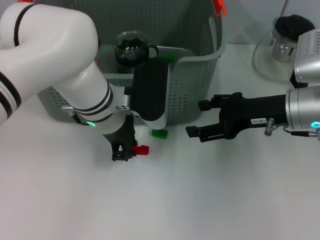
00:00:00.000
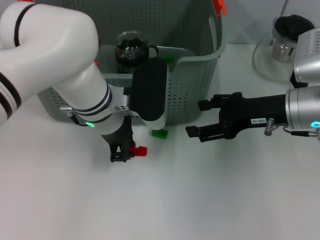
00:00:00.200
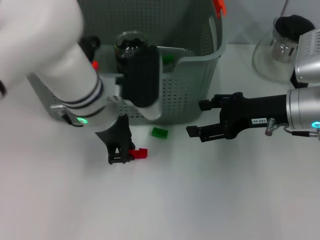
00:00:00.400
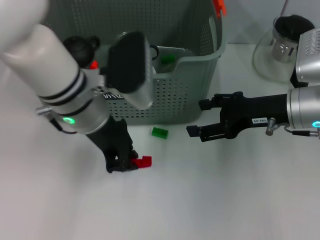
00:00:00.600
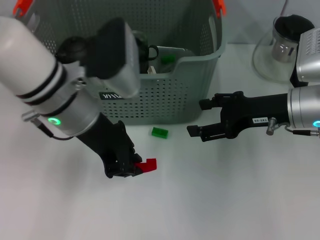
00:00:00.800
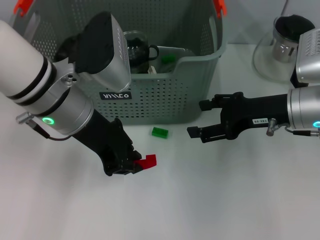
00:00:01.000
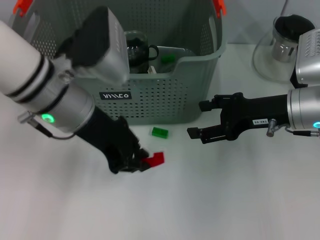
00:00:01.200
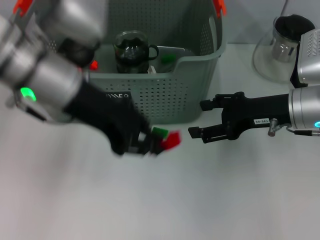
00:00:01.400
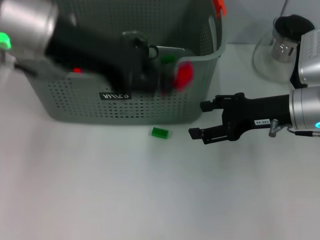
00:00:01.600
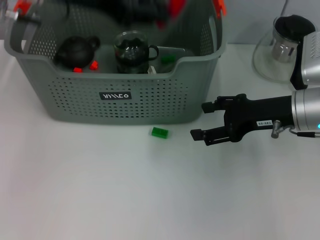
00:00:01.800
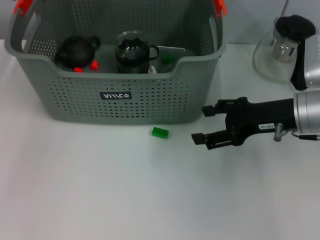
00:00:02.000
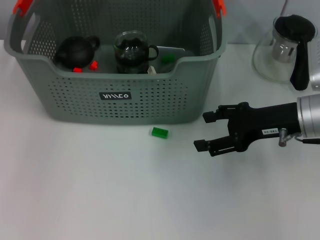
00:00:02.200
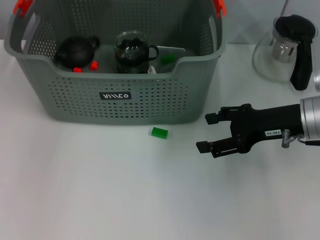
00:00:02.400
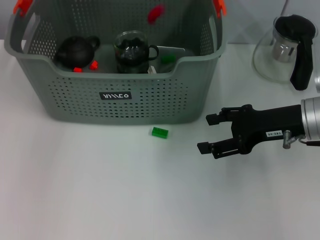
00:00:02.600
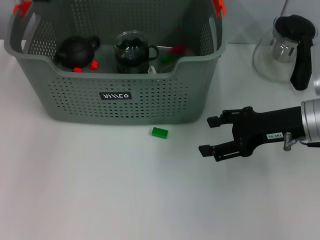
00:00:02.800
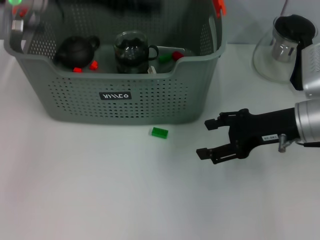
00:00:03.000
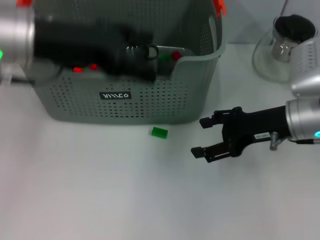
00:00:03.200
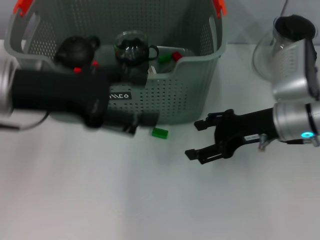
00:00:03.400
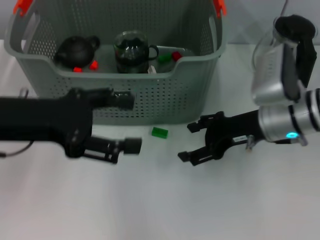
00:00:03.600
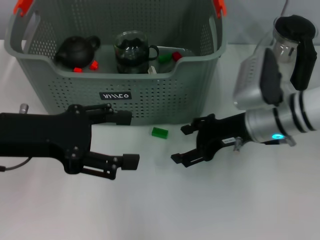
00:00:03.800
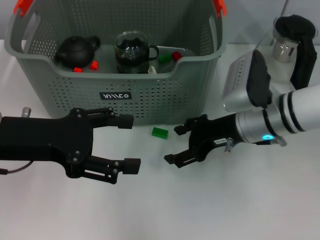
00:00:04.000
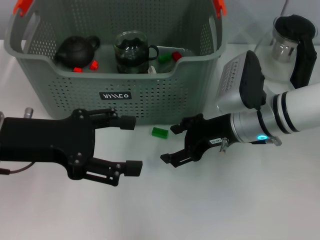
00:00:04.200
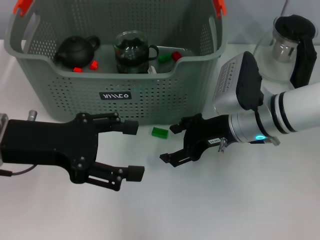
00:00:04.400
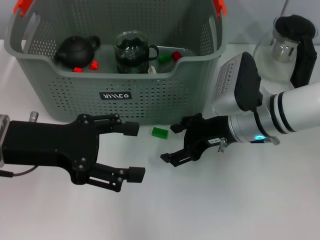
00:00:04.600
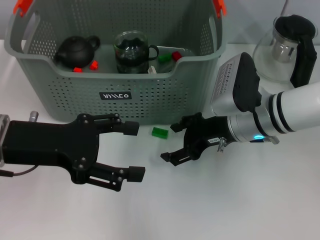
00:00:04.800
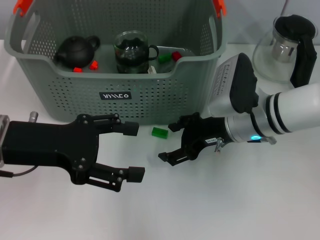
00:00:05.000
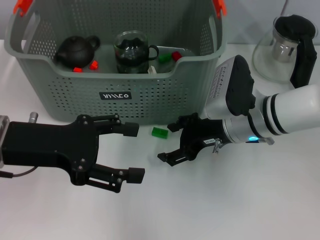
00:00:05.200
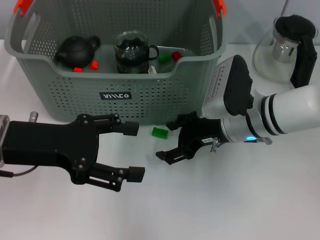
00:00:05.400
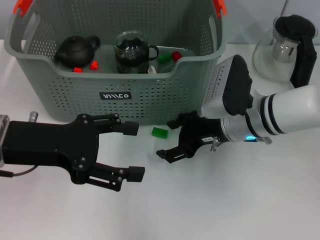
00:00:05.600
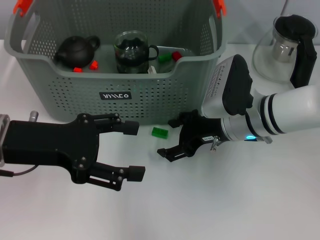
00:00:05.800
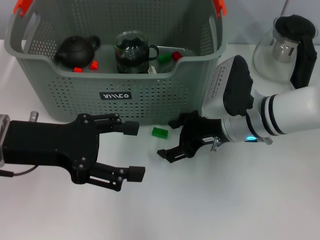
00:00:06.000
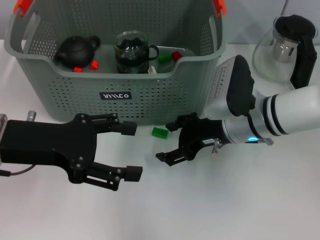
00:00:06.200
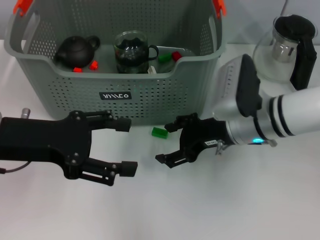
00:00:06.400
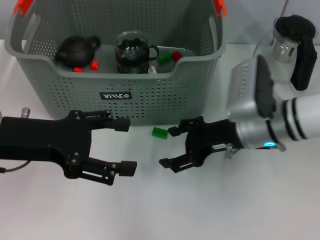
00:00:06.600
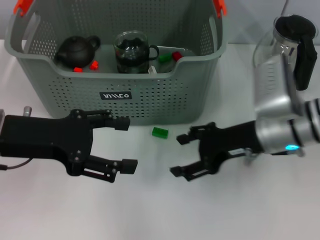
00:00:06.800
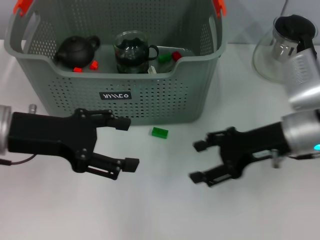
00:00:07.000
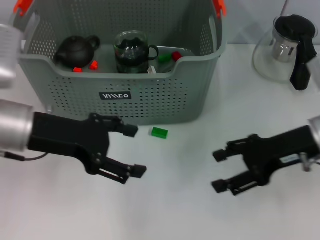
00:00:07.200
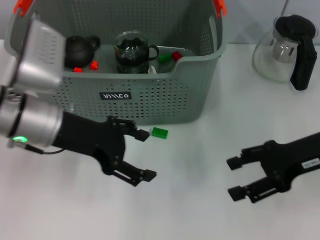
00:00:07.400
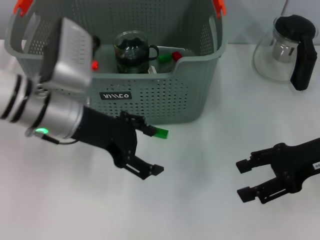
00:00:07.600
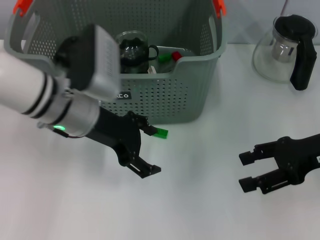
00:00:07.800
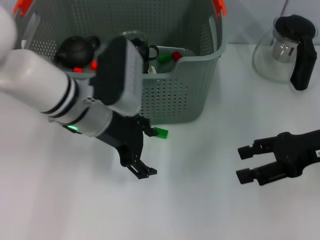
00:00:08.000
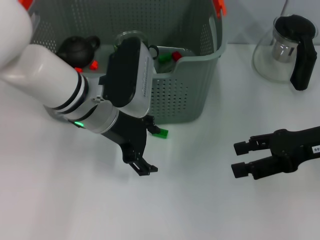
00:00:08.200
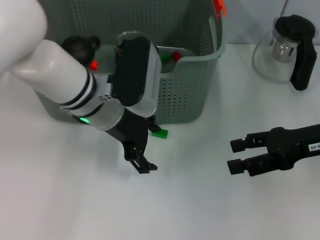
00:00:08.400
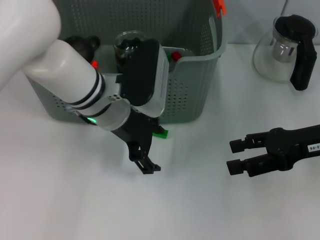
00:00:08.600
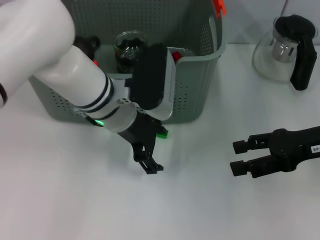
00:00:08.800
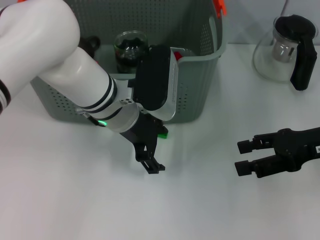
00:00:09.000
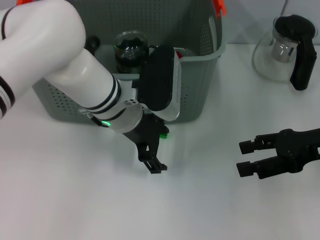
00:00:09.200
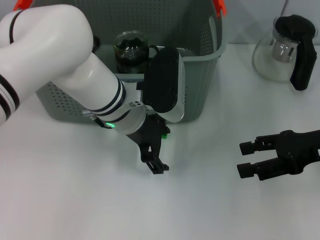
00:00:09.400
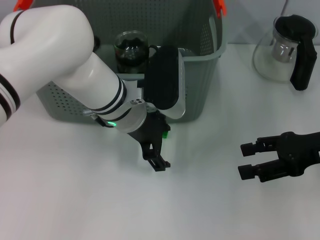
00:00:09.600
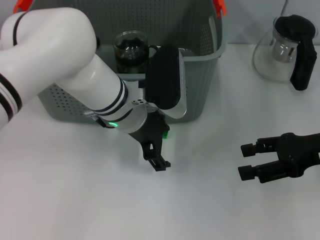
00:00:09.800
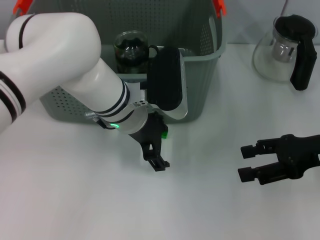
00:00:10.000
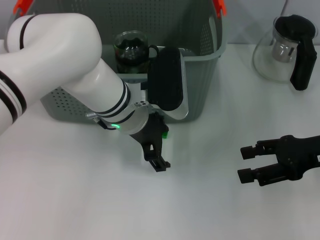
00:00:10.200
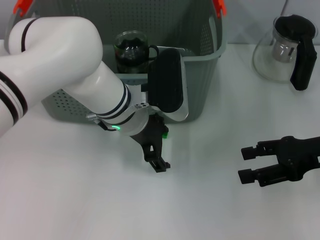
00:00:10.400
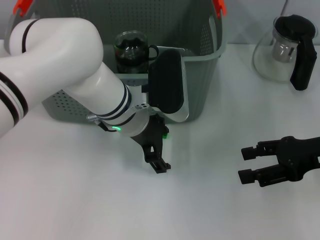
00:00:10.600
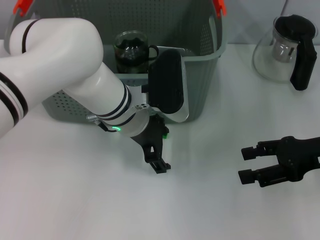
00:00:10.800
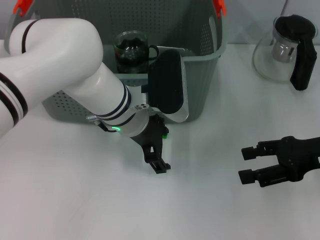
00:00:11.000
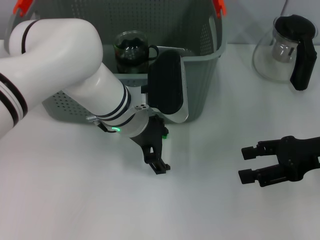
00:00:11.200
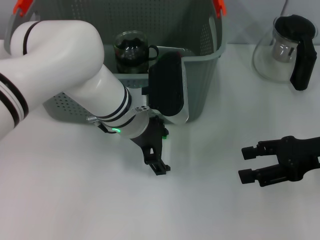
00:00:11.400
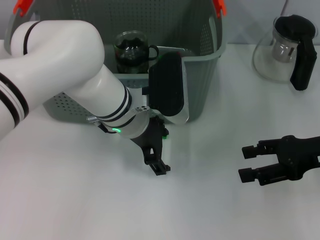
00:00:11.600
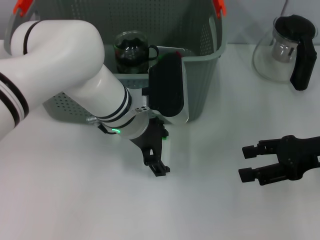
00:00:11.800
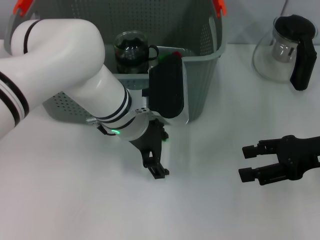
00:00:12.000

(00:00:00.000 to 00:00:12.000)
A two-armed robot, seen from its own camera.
Task of the whole recording: pick up the teacup on the table and place it into the storage bin, pick up the block on the table and place it into the storage bin.
Step, 00:00:00.200 - 00:00:02.600: Place the red block in the storage box with left gripper.
00:00:00.000 - 00:00:01.600: The left gripper shifts roughly 20 cm upward and to the left.
00:00:01.600 - 00:00:03.000: The left gripper goes forward and returns, approximately 10 cm each way, and opens.
00:00:03.000 - 00:00:04.400: The left gripper heads backward and downward, covering about 15 cm, and opens. The right gripper is displaced to the left by approximately 10 cm.
00:00:04.400 - 00:00:06.000: The grippers make only small movements.
00:00:06.000 - 00:00:07.600: The right gripper travels to the right by some 15 cm. The left gripper goes some 10 cm forward and to the right.
00:00:07.600 - 00:00:09.000: The left gripper goes approximately 10 cm to the right.
00:00:09.000 - 00:00:10.400: The grippers make only small movements.
00:00:10.400 - 00:00:12.000: Both grippers stay put.

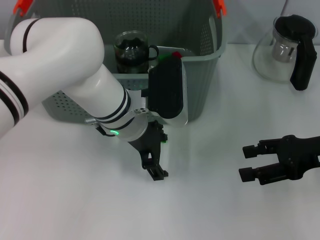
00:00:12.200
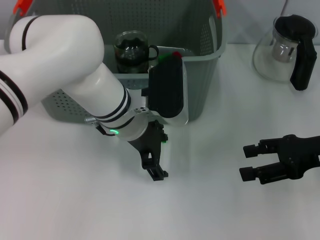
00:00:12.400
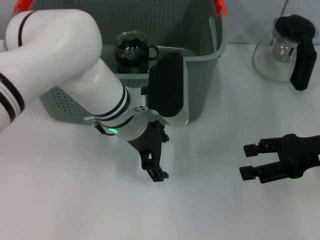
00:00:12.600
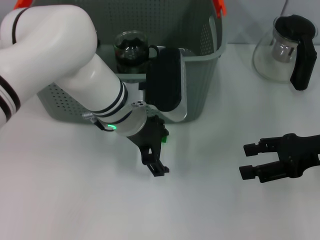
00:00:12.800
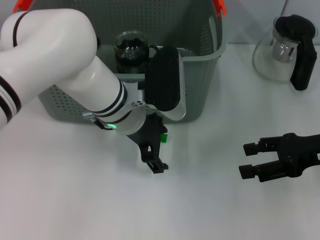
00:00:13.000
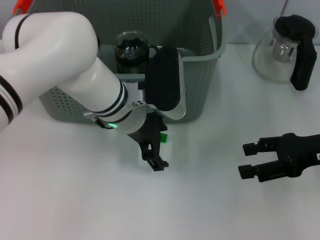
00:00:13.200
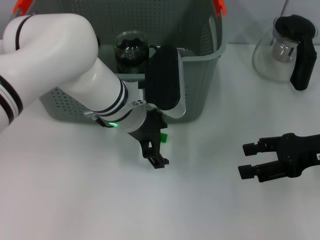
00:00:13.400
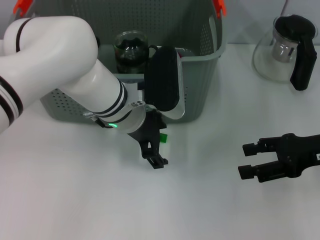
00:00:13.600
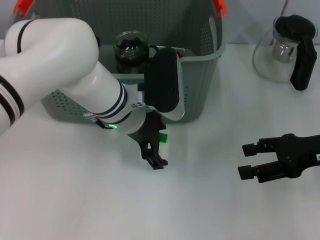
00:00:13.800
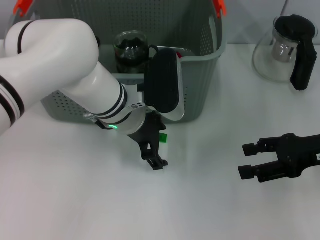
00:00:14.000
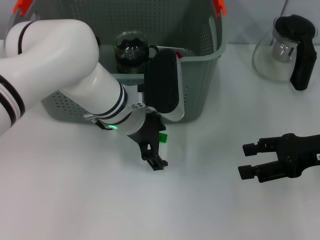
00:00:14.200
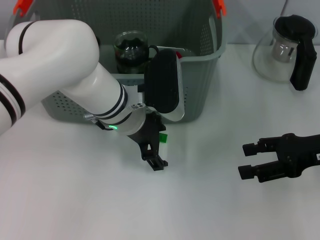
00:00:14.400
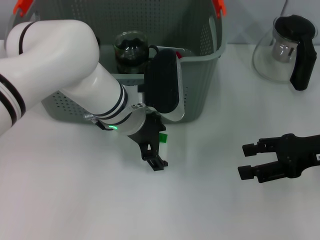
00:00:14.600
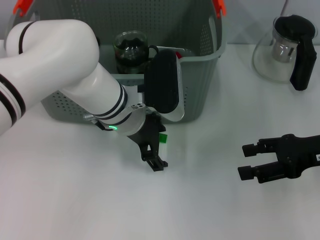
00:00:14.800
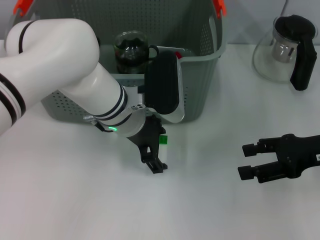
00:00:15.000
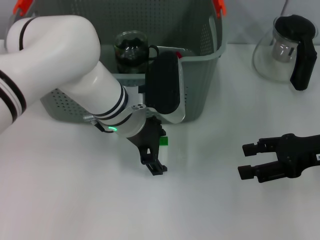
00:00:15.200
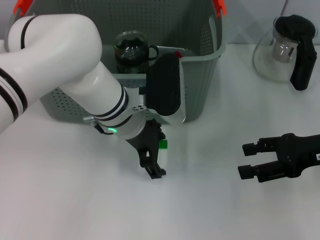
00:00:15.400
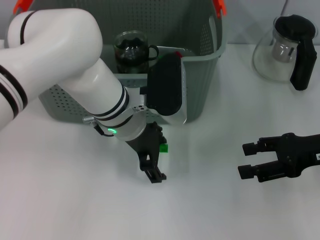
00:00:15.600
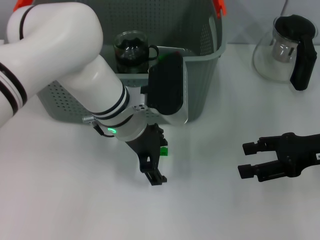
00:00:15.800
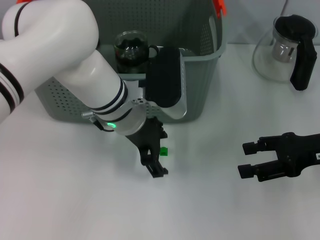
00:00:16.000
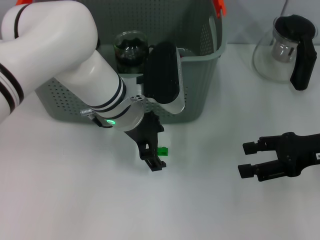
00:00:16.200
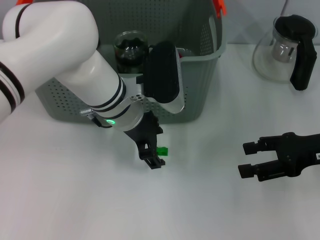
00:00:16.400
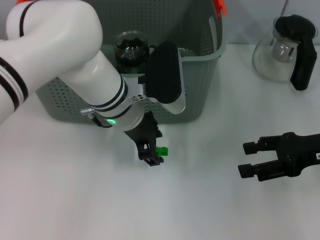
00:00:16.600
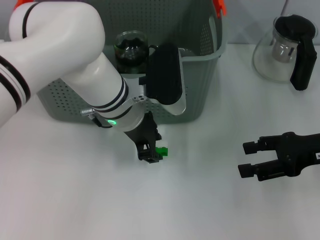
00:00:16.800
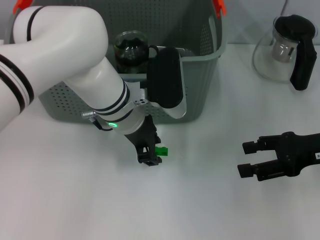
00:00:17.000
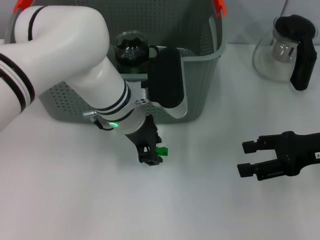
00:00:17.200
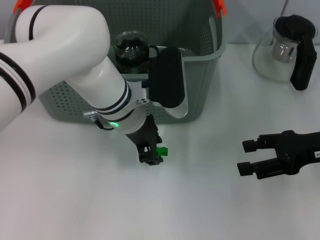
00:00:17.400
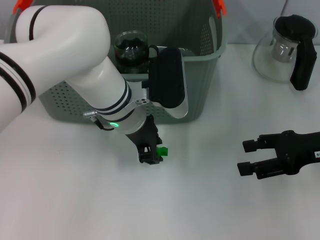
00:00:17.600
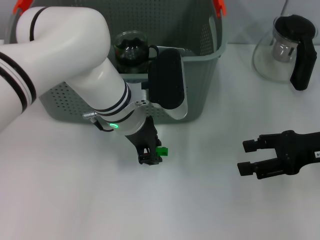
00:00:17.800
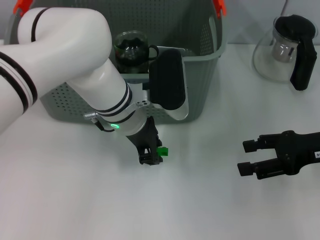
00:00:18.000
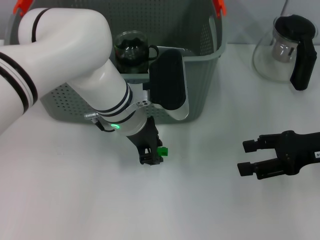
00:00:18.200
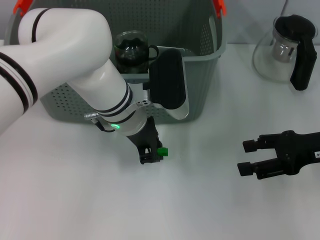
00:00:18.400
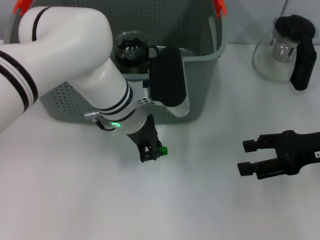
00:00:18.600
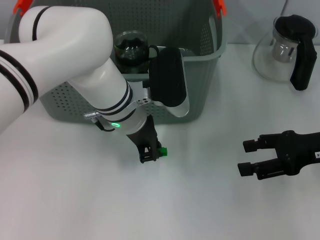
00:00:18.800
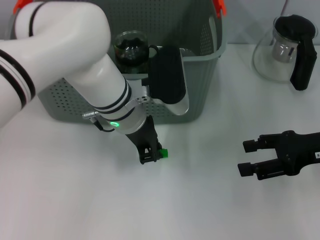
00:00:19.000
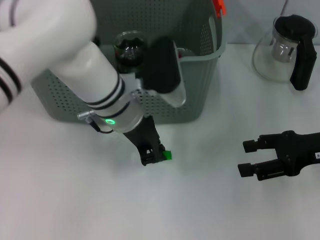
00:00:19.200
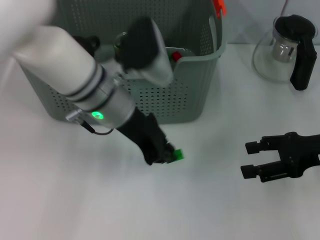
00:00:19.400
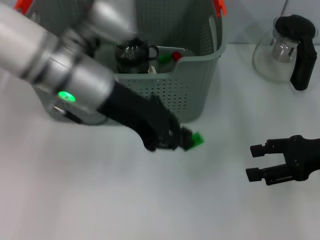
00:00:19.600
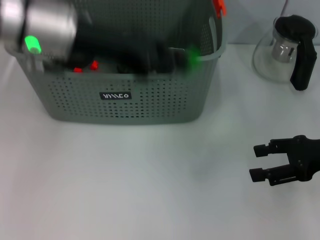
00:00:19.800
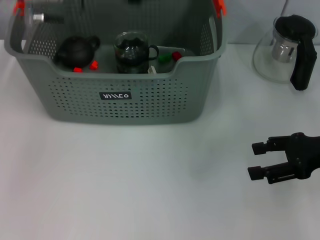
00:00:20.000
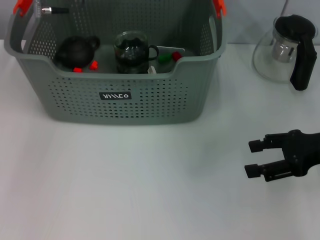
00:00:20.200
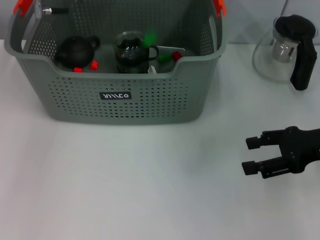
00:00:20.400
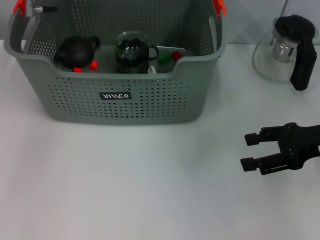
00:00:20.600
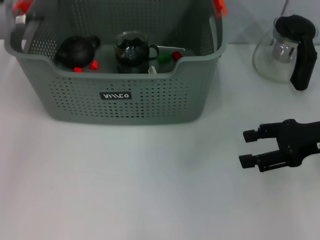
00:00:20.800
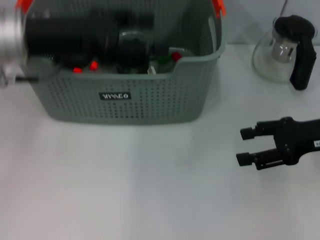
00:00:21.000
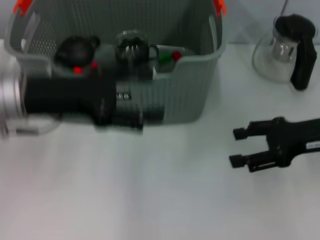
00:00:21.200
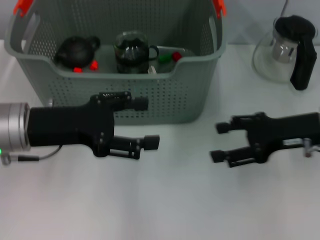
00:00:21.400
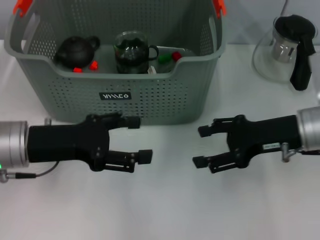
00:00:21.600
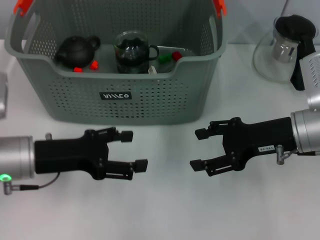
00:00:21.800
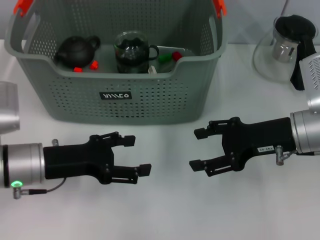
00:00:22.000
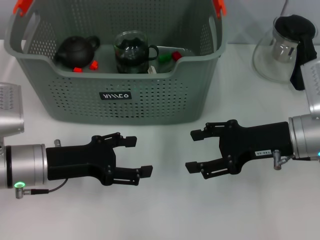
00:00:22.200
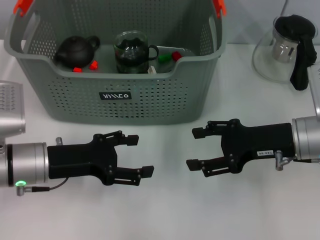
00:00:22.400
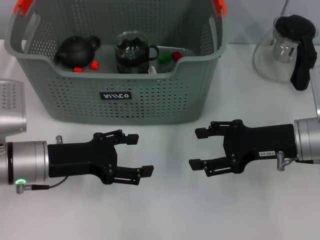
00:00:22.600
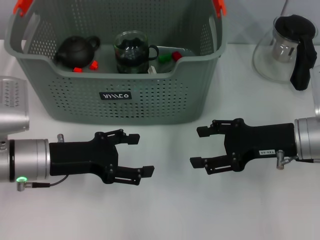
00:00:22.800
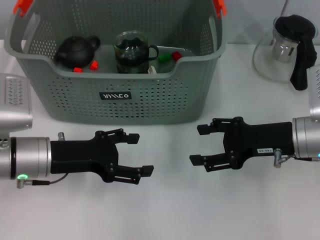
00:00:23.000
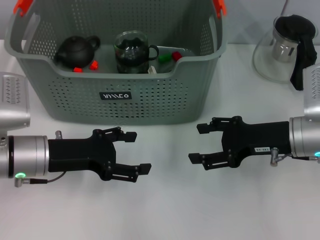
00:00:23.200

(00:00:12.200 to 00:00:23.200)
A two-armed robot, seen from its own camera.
Task of the whole recording: pick up the teacup on the table and place it into the storage bin, pick up the block on the table and place it into the storage bin.
Step, 00:00:12.200 - 00:00:18.800: Grasp the green block with left gripper.
Step, 00:00:19.000 - 00:00:20.400: Place the green block in the storage box with left gripper.
00:00:12.200 - 00:00:15.400: Both grippers stay about where they are.
00:00:15.400 - 00:00:17.000: The left gripper closes.
00:00:17.000 - 00:00:18.400: Neither gripper changes place.
00:00:18.400 - 00:00:20.000: The left gripper goes approximately 20 cm upward and to the left.
00:00:20.000 - 00:00:21.600: The right gripper heads to the left, covering roughly 10 cm. The left gripper travels backward and downward by roughly 20 cm, and opens up.
00:00:21.600 - 00:00:23.200: The left gripper moves about 5 cm.
